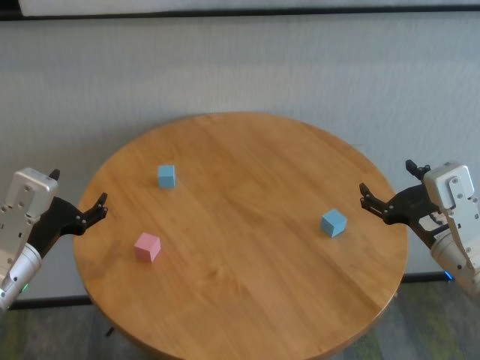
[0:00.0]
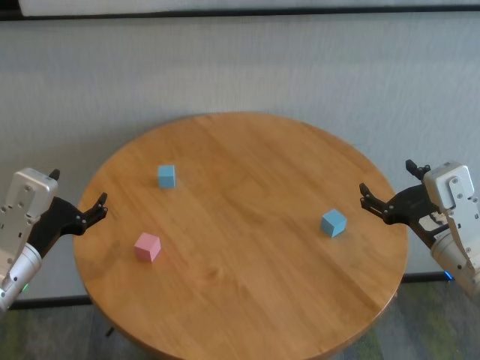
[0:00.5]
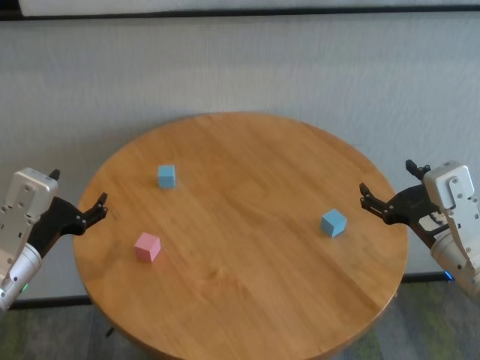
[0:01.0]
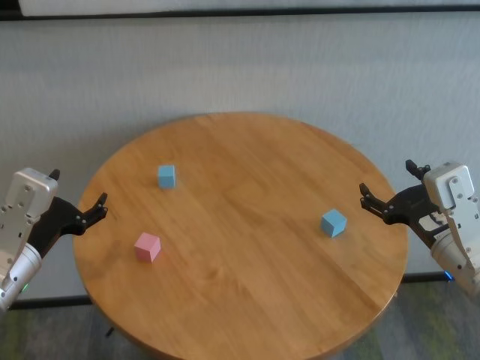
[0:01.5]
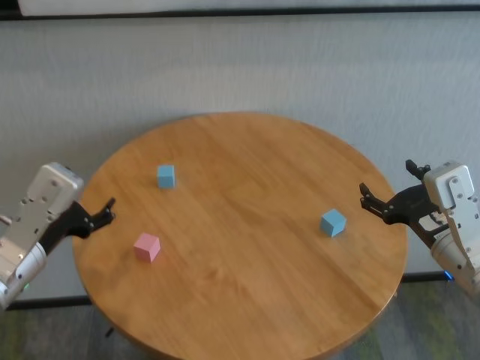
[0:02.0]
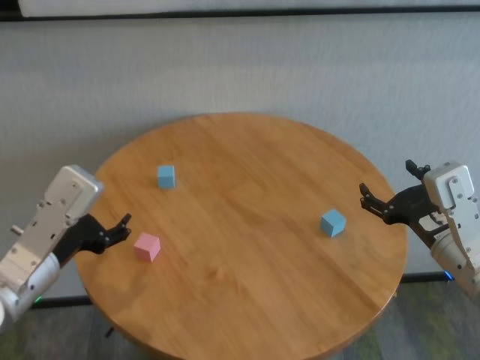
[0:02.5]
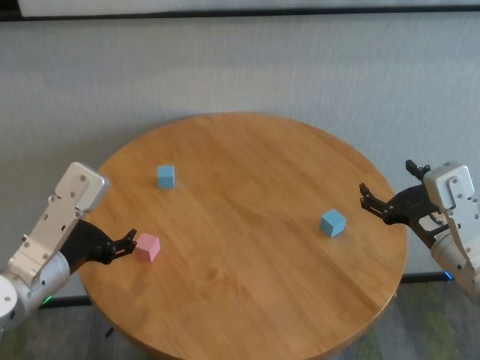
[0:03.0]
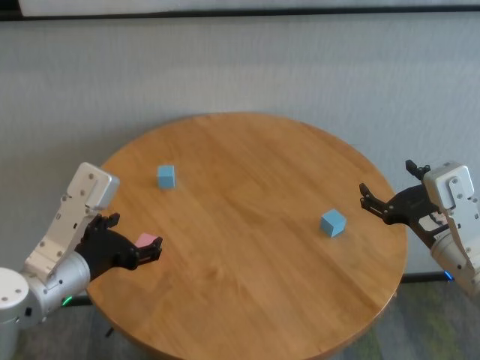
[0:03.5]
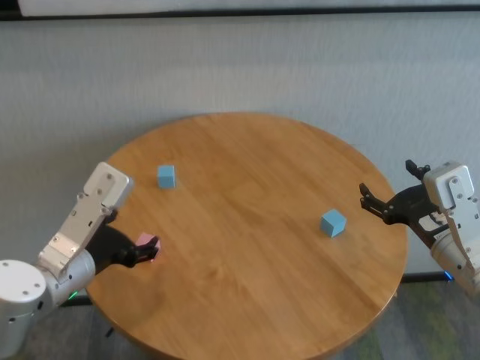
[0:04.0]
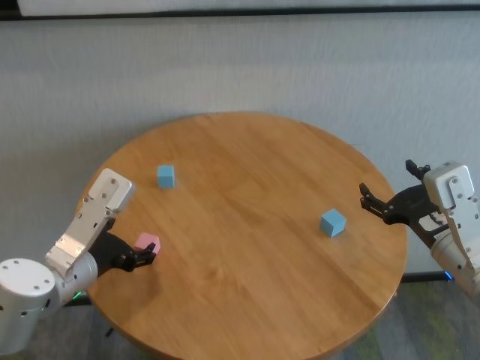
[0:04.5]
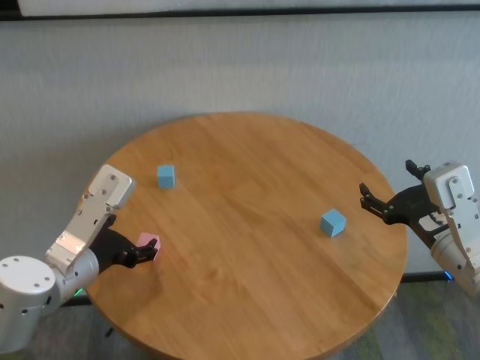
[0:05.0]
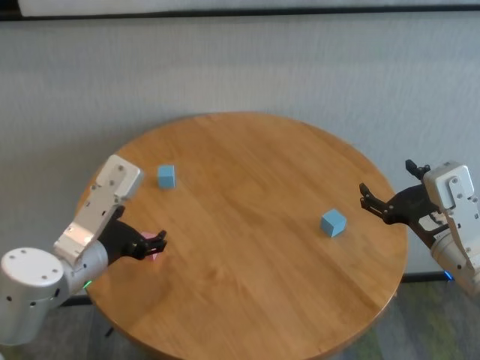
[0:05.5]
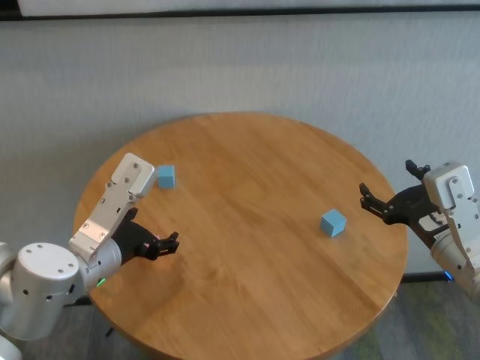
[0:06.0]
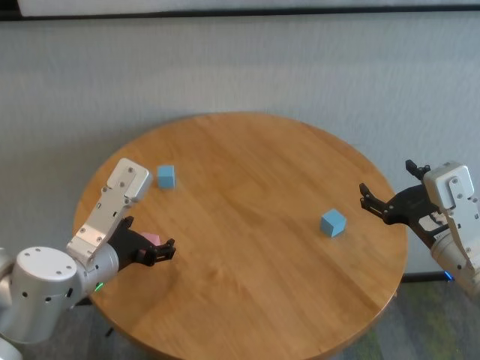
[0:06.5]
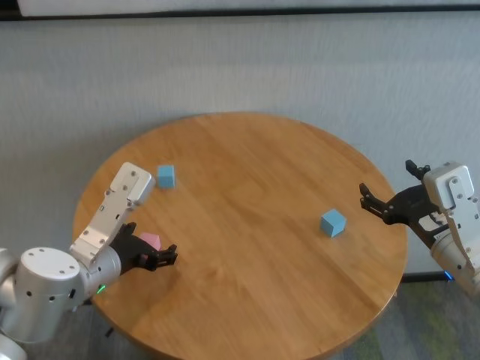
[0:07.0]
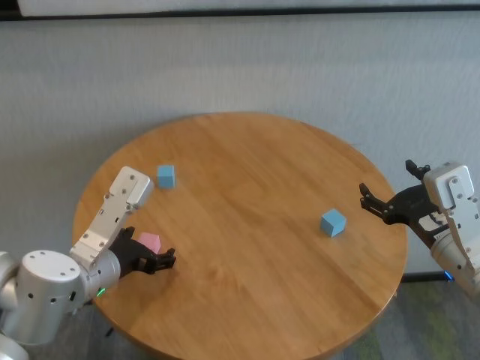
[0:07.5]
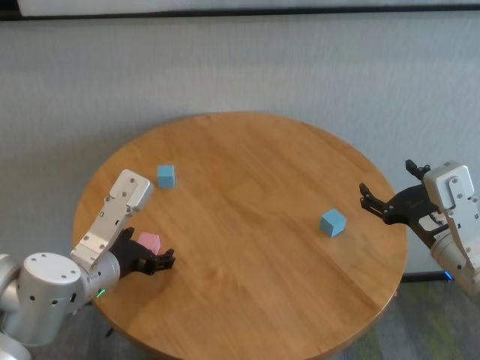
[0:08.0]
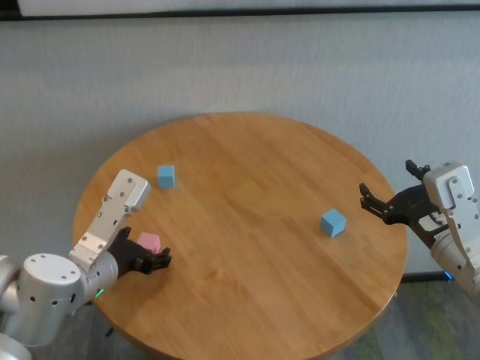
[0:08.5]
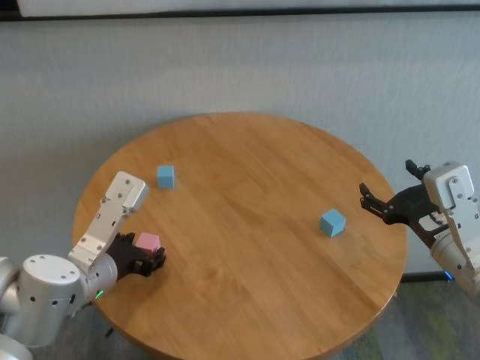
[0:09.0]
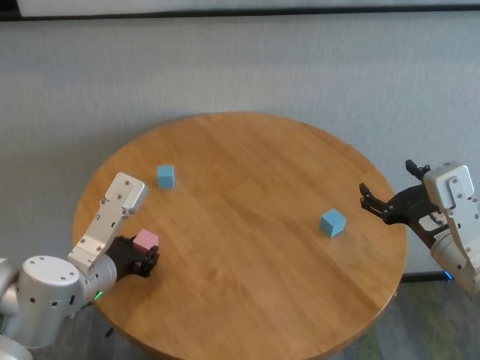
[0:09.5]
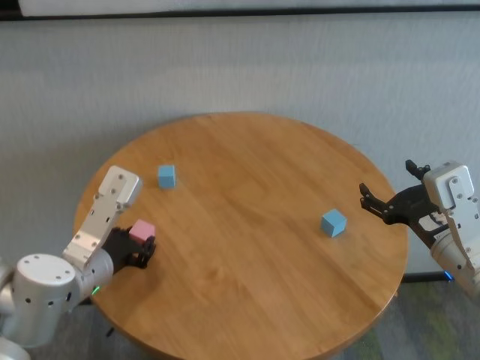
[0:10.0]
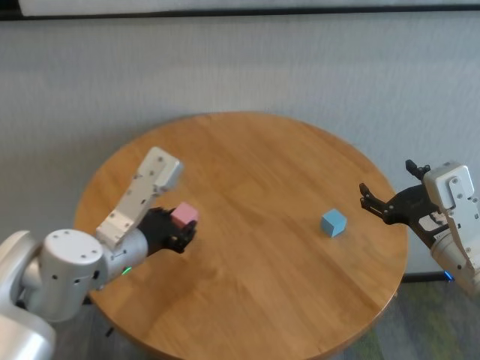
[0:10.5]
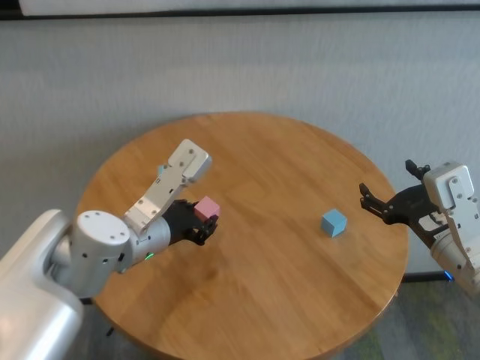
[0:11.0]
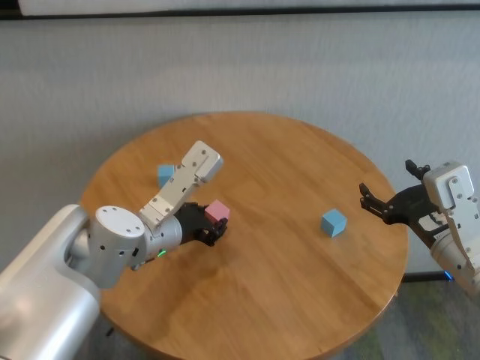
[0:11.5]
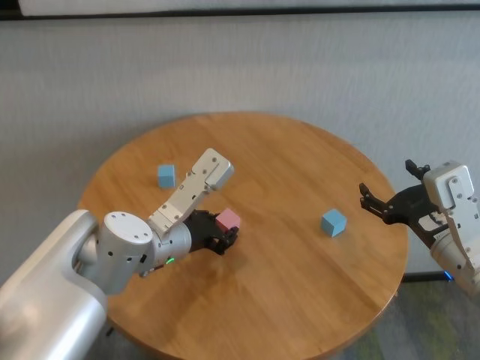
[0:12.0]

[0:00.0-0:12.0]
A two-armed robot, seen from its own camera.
Task of the whole recording: stack building blocks on the table.
Step, 0:00.0 to 0:09.5: Grasp the pink building block with left gripper.

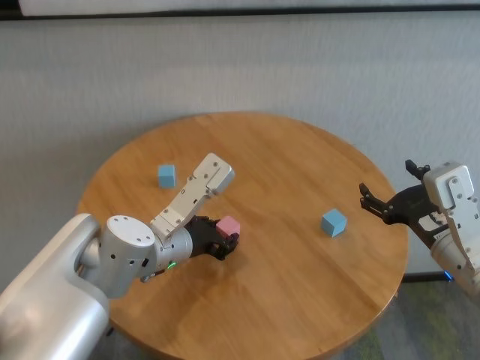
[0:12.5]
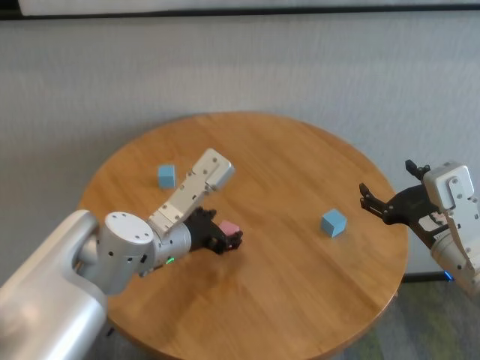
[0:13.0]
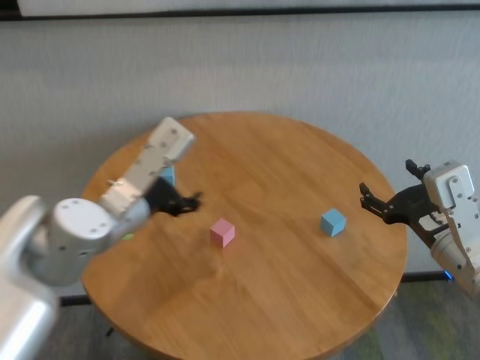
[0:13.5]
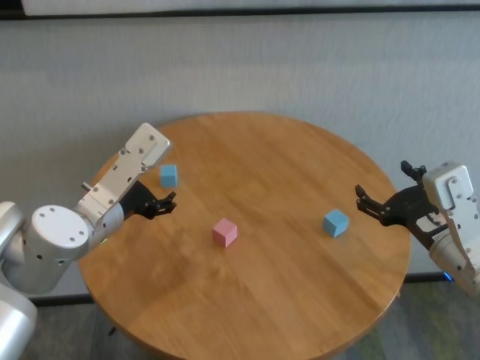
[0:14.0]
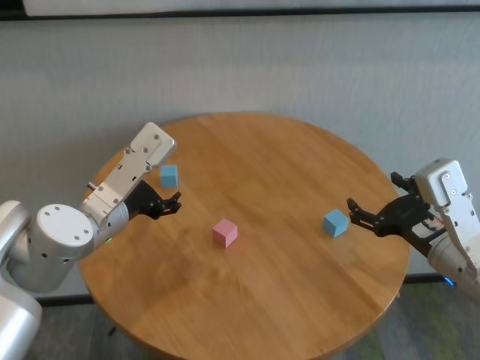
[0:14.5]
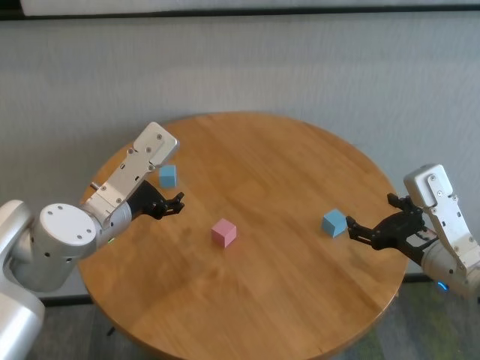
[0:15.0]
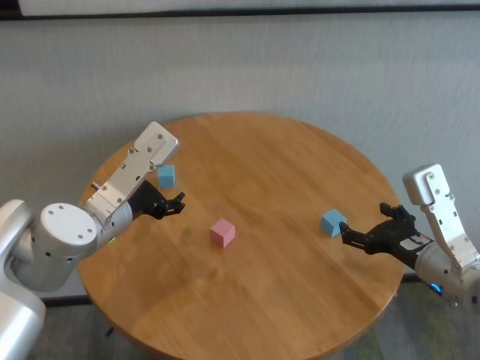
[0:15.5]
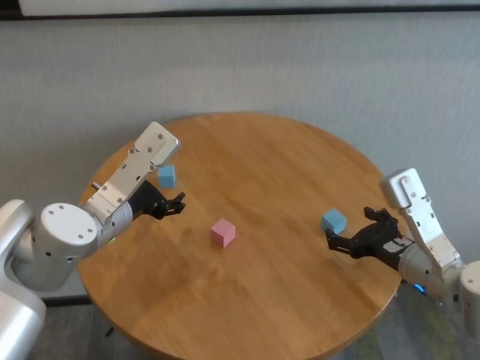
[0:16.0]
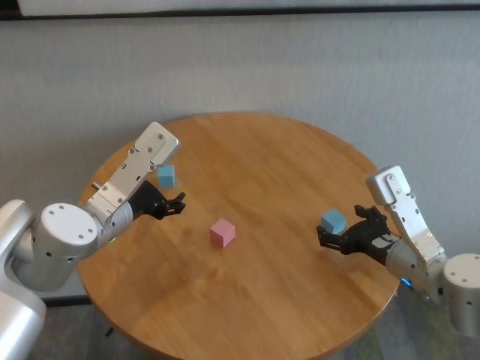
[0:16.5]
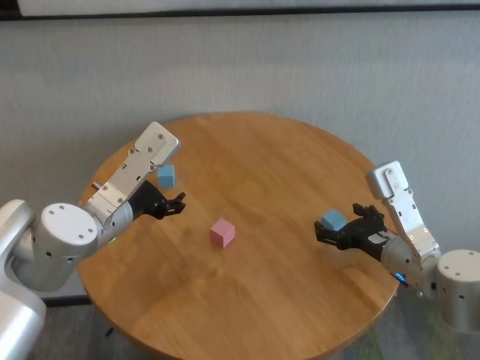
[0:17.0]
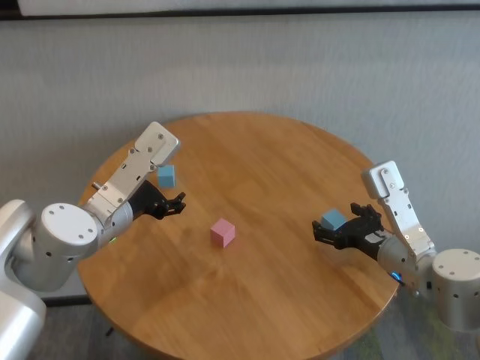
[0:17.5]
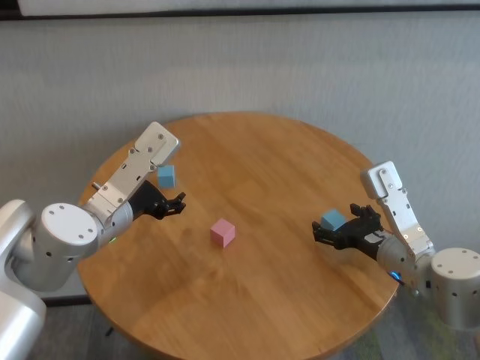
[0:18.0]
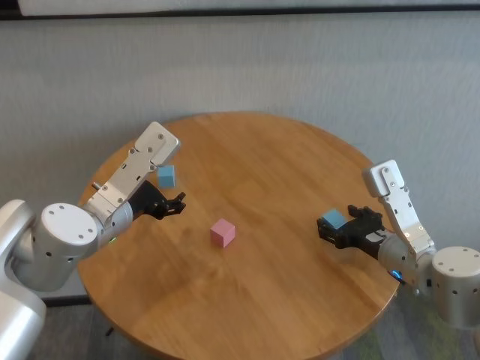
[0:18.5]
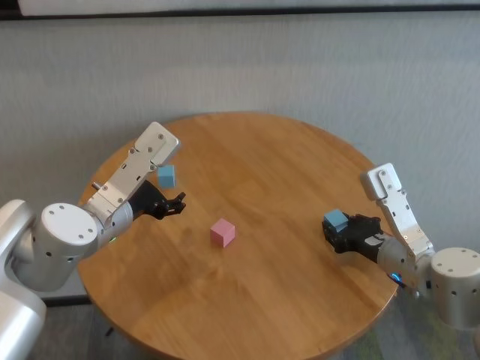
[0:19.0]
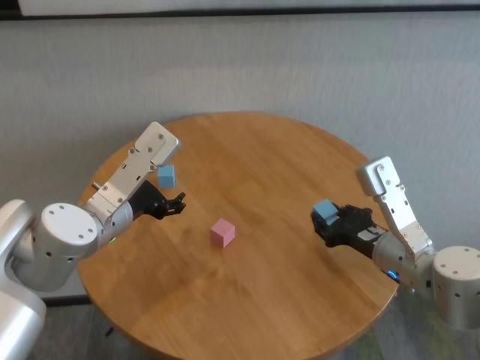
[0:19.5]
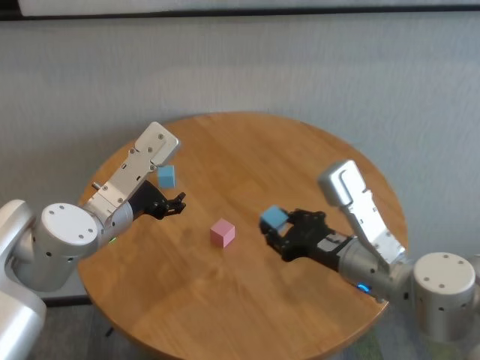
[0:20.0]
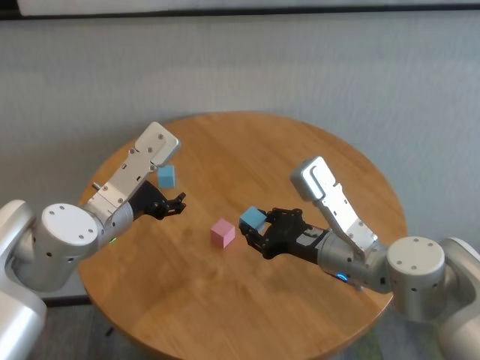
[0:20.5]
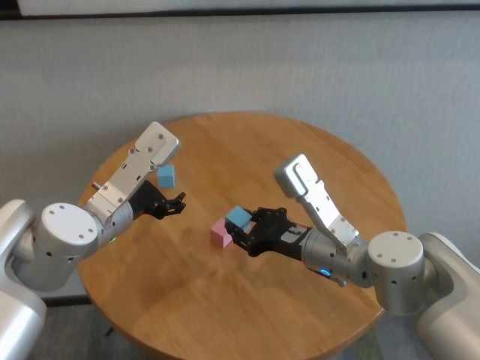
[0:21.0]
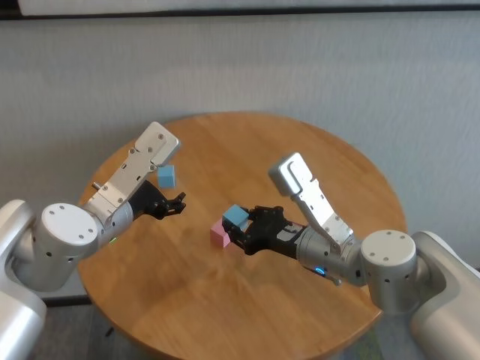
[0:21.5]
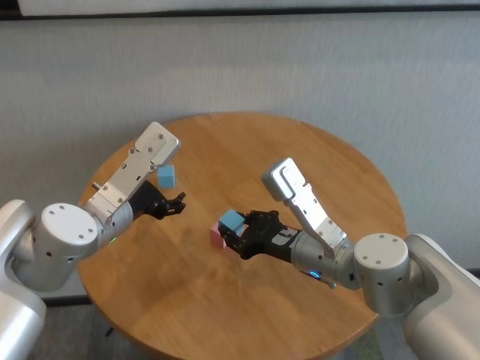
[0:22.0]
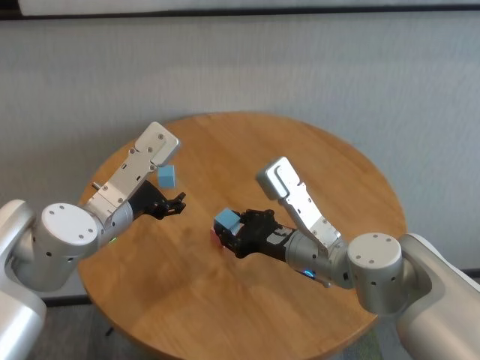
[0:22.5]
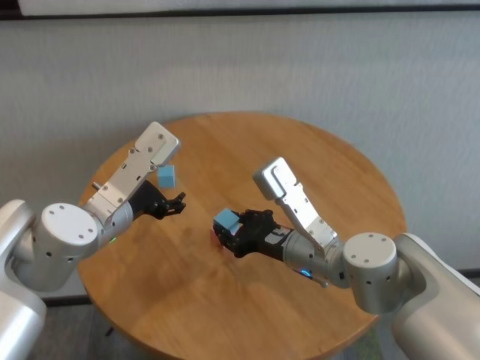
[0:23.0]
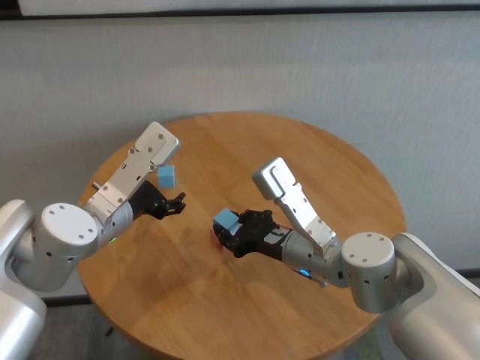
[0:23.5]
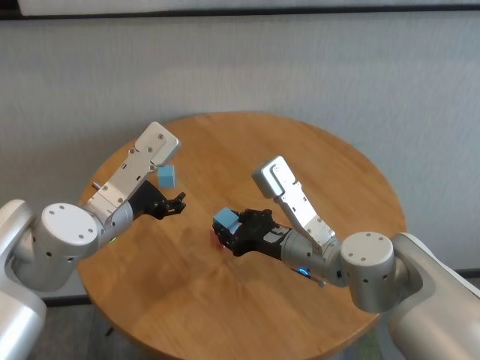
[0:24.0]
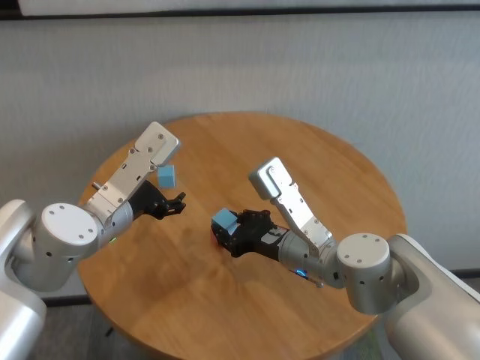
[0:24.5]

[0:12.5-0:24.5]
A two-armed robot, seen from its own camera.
Task of the whole recording: stack building blocks on the table.
Step, 0:13.0 to 0:19.0: Grasp the blue building block with right gripper.

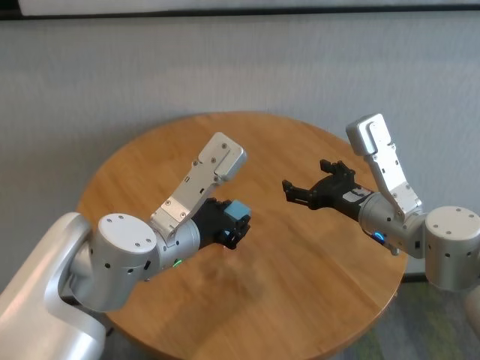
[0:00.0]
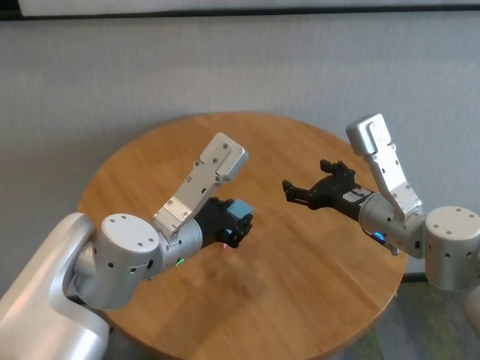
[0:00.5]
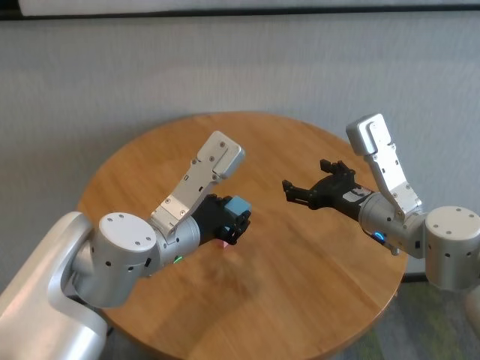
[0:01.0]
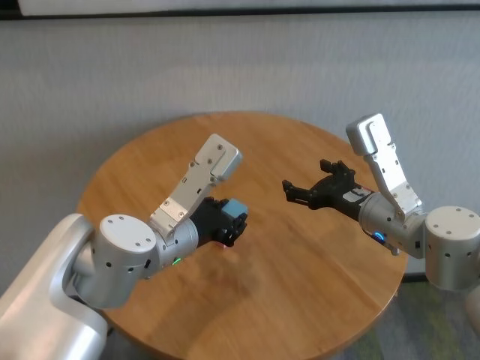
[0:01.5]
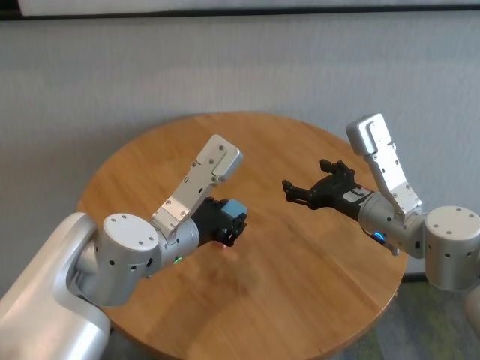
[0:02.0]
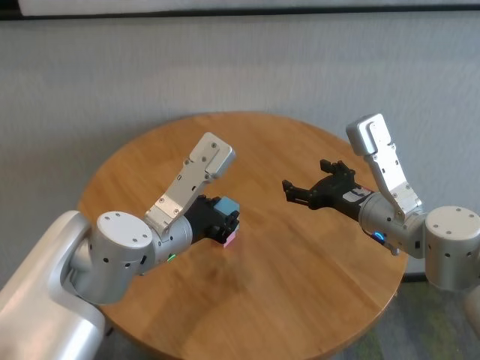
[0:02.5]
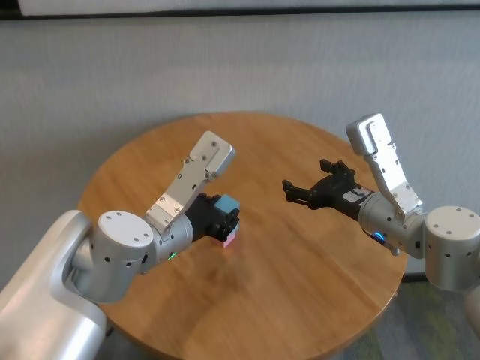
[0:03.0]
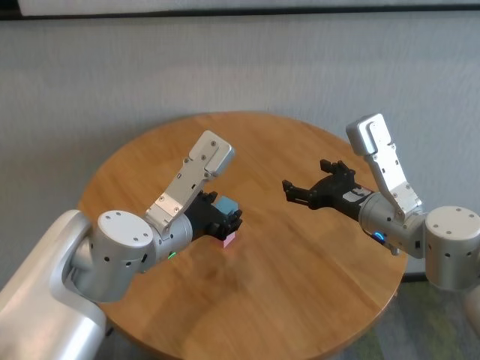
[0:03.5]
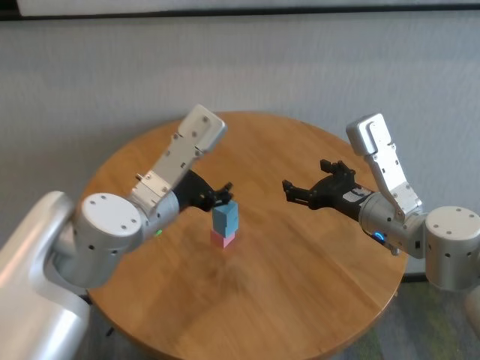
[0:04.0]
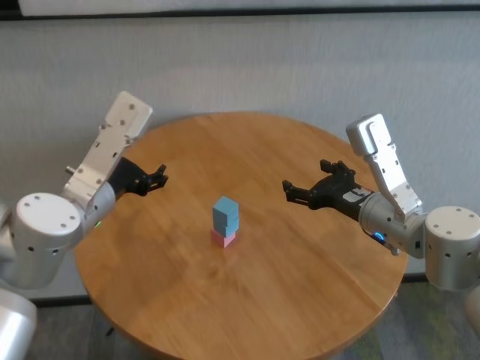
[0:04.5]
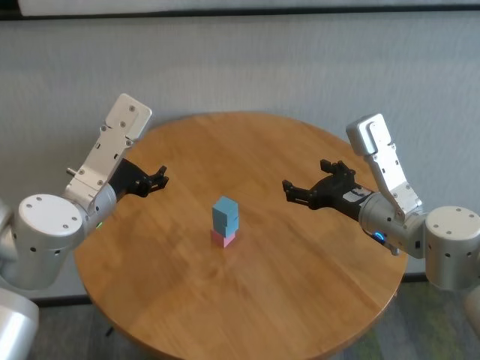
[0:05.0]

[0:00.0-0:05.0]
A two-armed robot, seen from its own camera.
Task of the whole recording: stack building blocks on the table.
Step, 0:00.0 to 0:03.5: Place the blue building block on the blue building blocks with left gripper.
